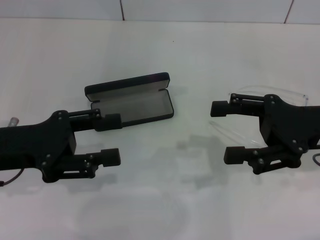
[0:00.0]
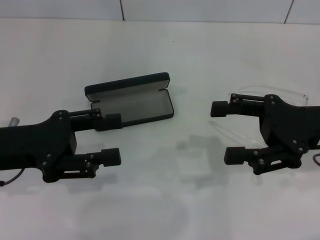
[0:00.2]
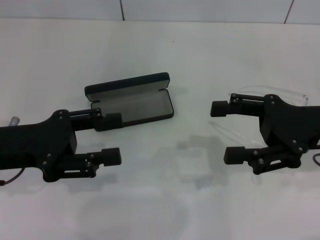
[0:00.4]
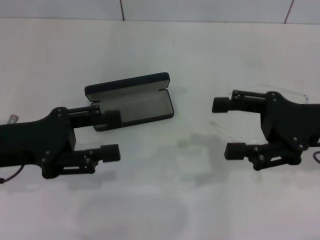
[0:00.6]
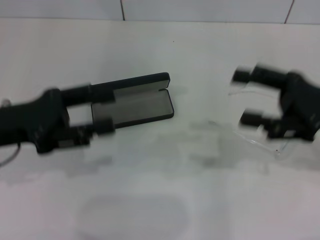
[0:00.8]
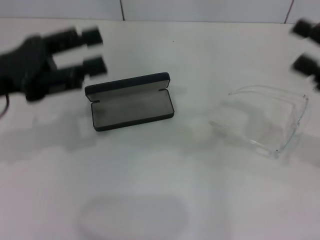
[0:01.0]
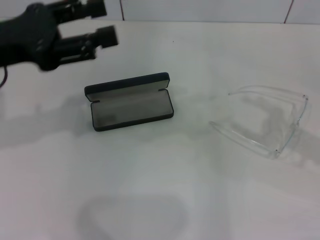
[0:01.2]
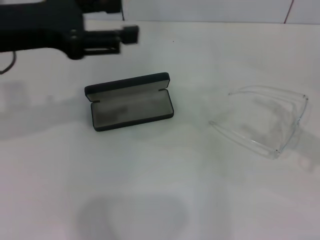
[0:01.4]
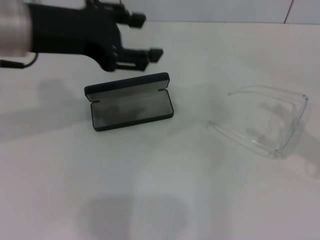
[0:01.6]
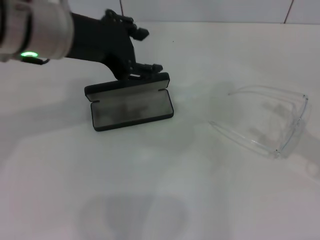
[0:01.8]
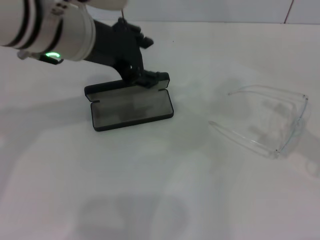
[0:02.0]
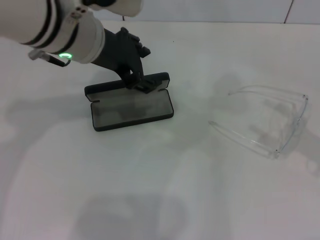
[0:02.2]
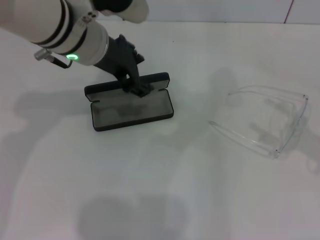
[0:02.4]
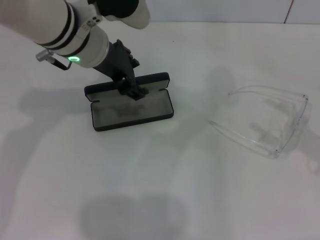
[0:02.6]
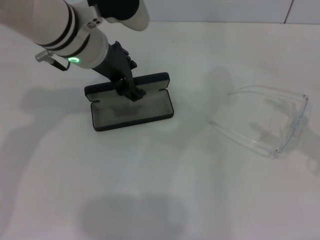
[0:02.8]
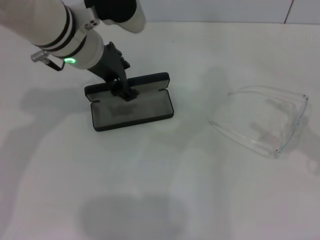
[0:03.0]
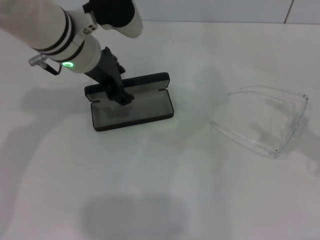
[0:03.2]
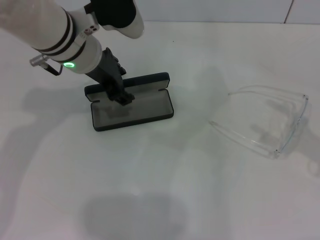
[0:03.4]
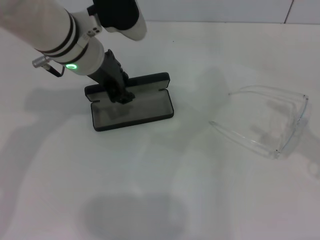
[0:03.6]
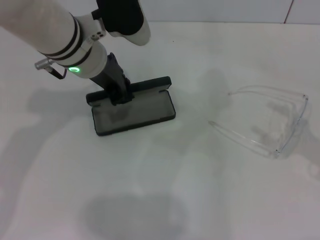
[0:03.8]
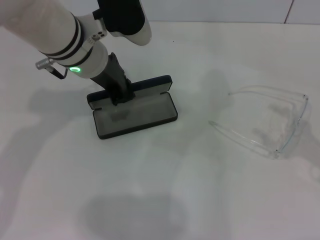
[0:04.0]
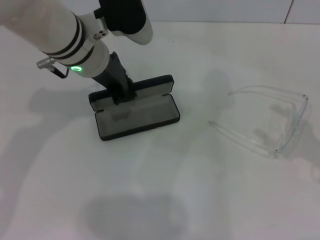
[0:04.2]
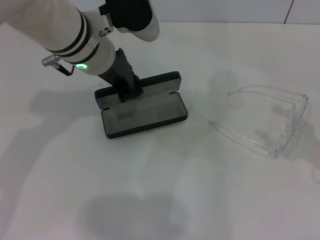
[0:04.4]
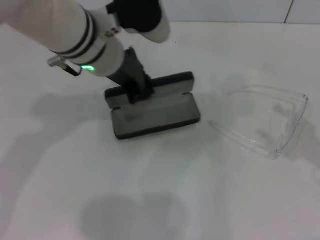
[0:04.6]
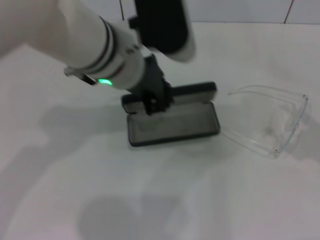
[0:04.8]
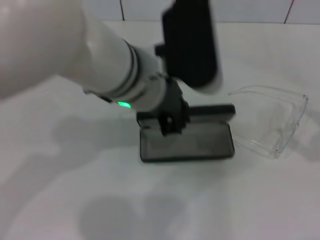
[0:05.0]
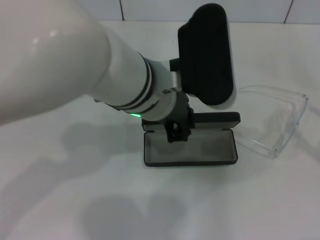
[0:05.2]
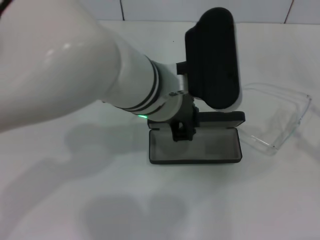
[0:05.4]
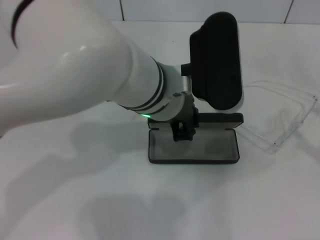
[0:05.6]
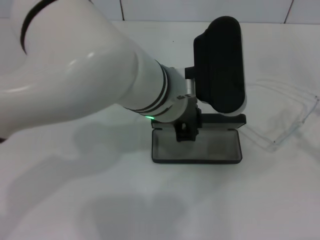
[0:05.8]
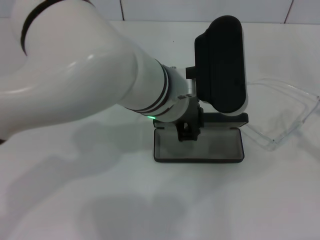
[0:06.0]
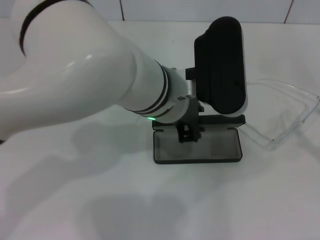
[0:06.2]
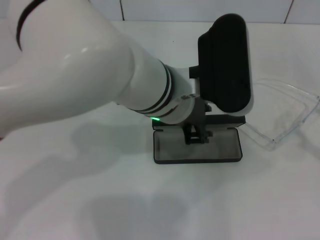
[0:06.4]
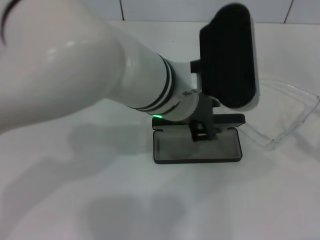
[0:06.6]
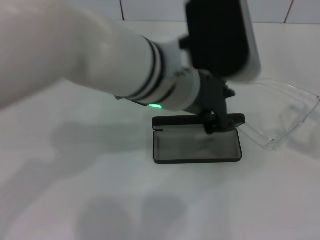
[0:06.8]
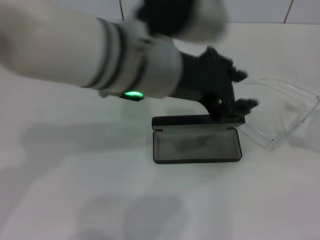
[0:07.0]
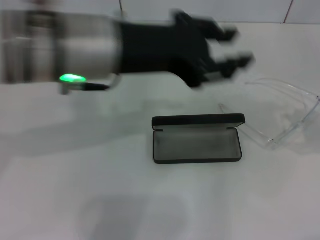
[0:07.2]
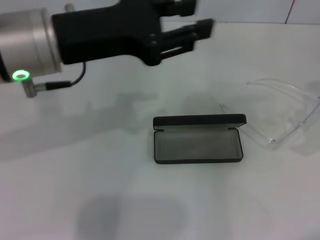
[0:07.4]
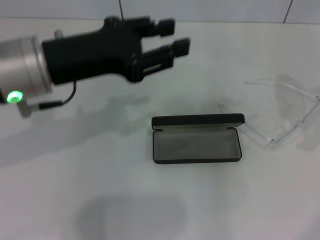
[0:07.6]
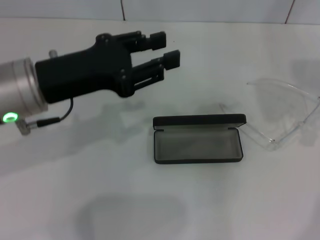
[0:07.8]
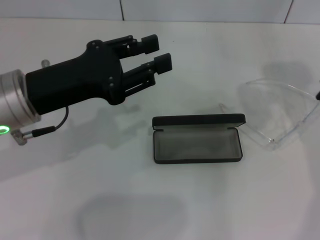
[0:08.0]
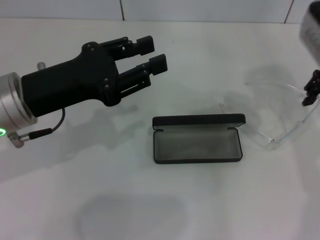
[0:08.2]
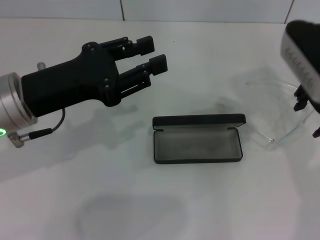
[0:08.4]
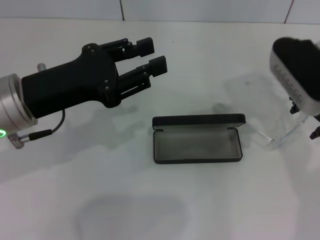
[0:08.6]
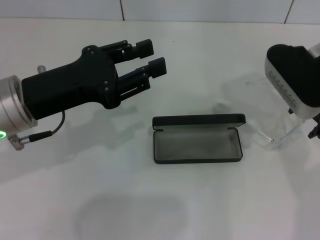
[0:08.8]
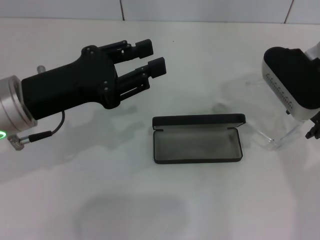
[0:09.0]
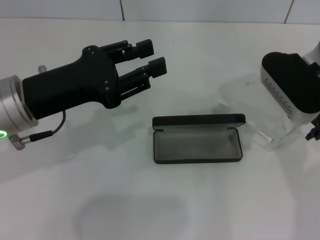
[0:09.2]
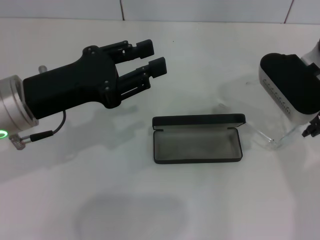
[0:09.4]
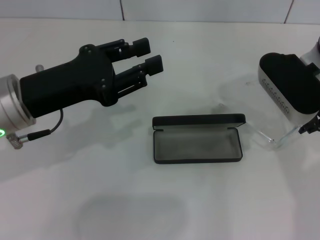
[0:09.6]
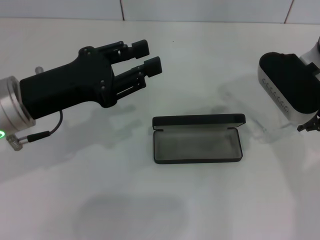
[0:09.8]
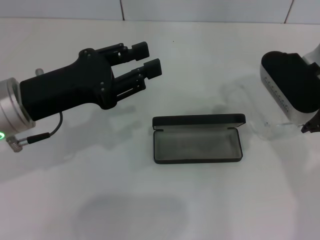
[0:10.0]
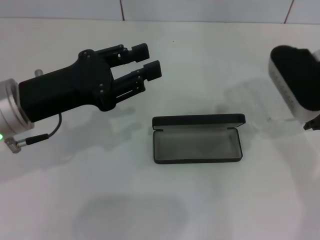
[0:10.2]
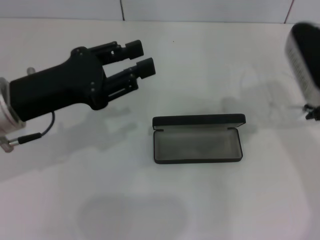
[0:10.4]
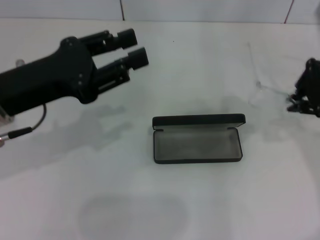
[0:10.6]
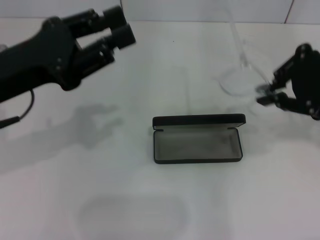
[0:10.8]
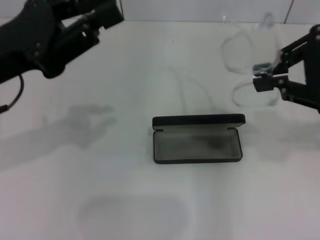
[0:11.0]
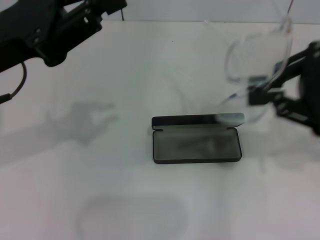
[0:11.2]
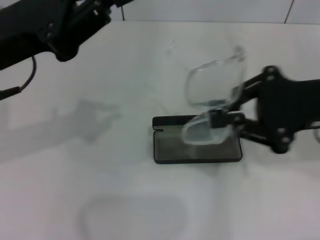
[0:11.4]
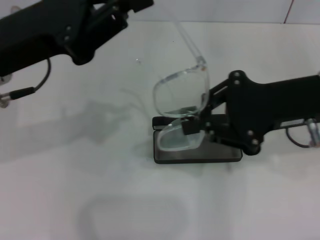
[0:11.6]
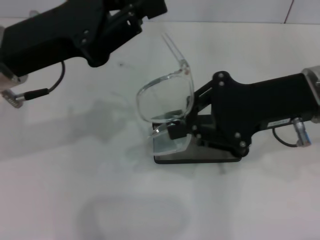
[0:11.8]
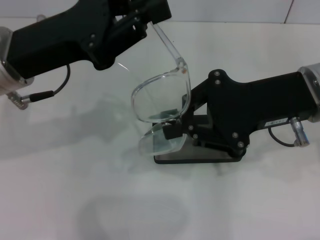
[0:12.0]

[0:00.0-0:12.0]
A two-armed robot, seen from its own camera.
Step, 0:00.0 to 0:03.8: Grab the glasses case with your left hand.
Step, 0:04.0 to 0:06.0: Place the glasses case in the center of the table with your left hand.
Step, 0:06.2 to 0:09.8: Grab the eyeglass frame with your right hand.
0:00.0 to 0:01.6: The left gripper shifts about 15 cm upward, to the right and forward. Meanwhile the right gripper is displaced to the right and backward by roughly 10 cm.
0:01.6 to 0:03.0: The left gripper is displaced forward, downward and to the right by about 10 cm.
0:03.0 to 0:04.4: The left gripper closes.
0:04.4 to 0:06.0: The left gripper heads to the right and backward, covering some 10 cm.
0:06.0 to 0:07.6: The right gripper travels forward and upward by roughly 25 cm, while the left gripper shifts roughly 15 cm to the left.
0:07.6 to 0:09.0: The right gripper goes about 15 cm to the left and downward; the left gripper moves about 5 cm.
0:09.0 to 0:10.4: The right gripper closes its fingers.
0:10.4 to 0:12.0: The right gripper goes about 5 cm backward, while the left gripper ends up roughly 5 cm from where it was, and closes up.

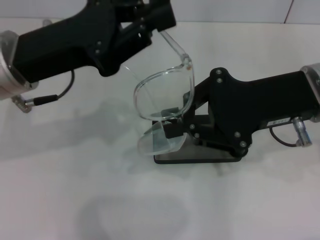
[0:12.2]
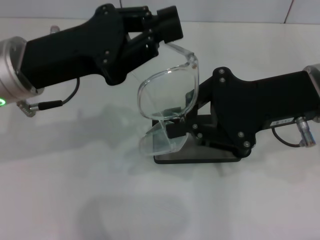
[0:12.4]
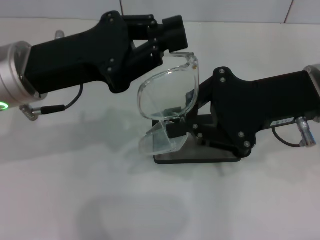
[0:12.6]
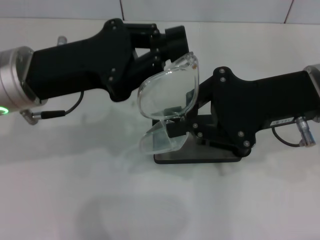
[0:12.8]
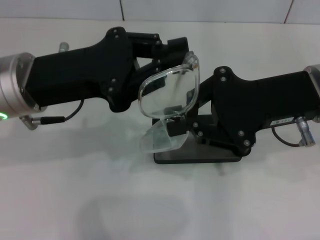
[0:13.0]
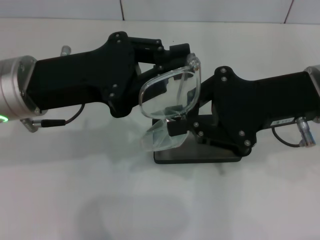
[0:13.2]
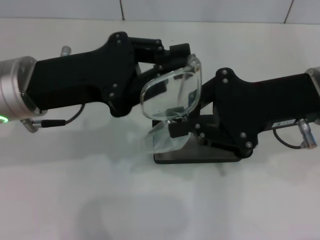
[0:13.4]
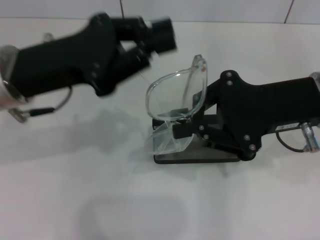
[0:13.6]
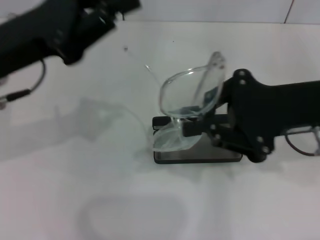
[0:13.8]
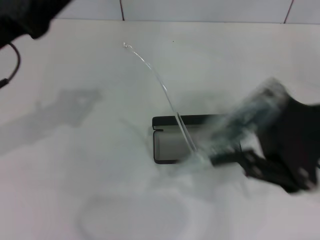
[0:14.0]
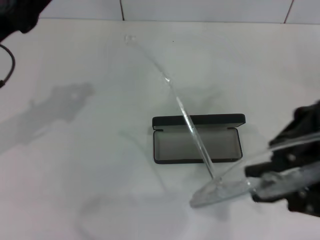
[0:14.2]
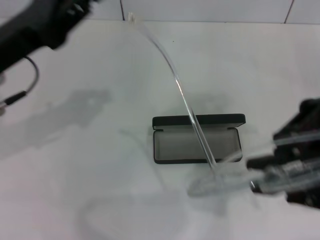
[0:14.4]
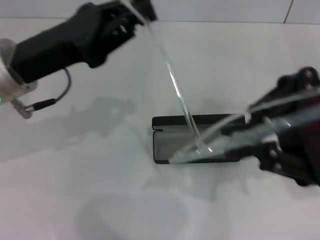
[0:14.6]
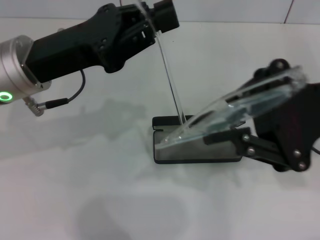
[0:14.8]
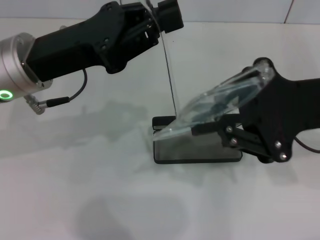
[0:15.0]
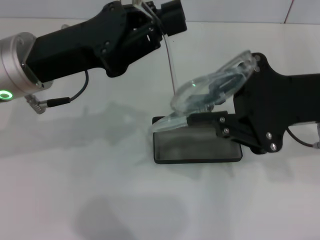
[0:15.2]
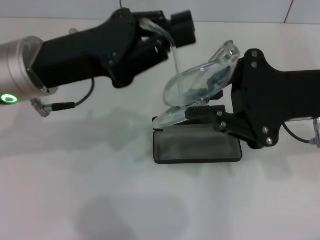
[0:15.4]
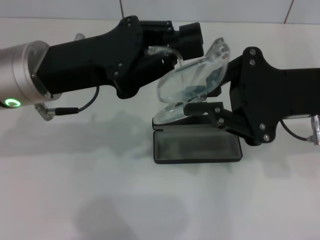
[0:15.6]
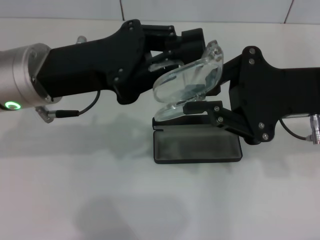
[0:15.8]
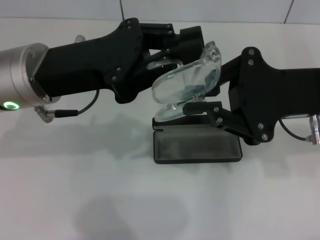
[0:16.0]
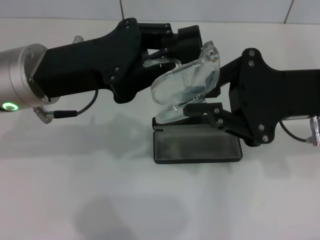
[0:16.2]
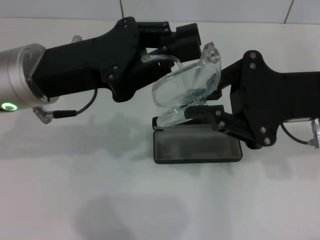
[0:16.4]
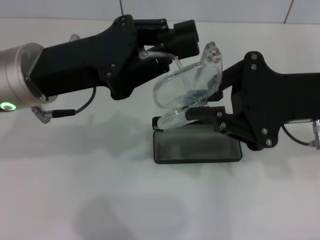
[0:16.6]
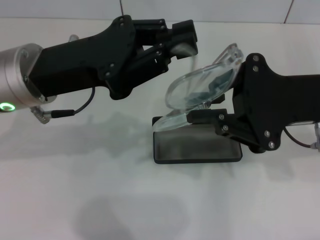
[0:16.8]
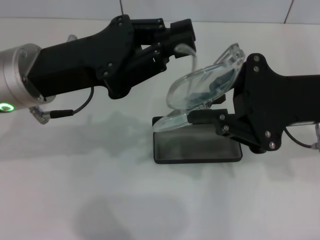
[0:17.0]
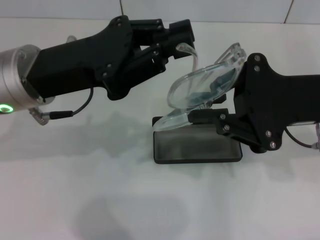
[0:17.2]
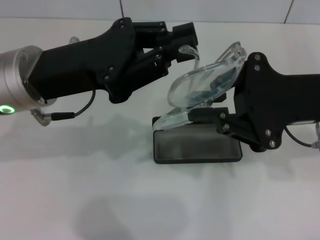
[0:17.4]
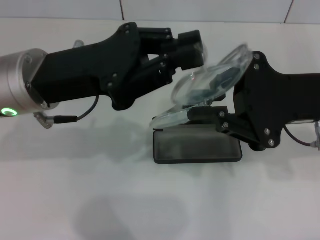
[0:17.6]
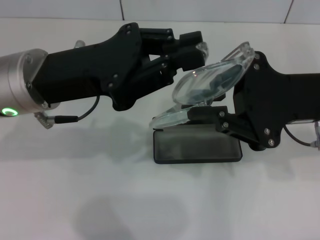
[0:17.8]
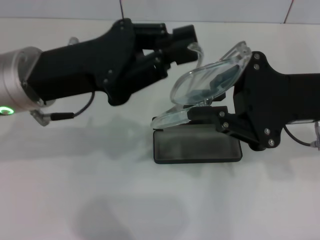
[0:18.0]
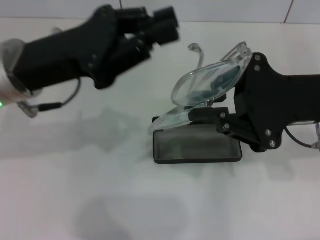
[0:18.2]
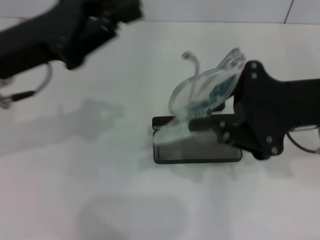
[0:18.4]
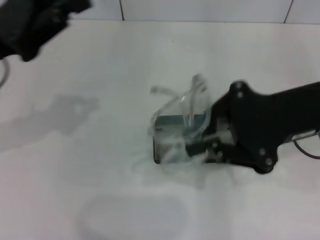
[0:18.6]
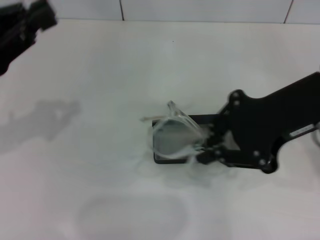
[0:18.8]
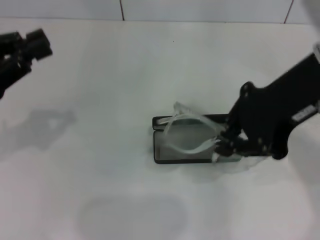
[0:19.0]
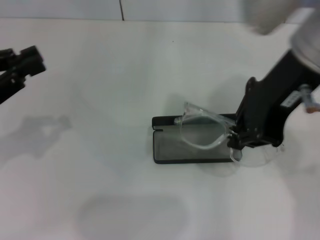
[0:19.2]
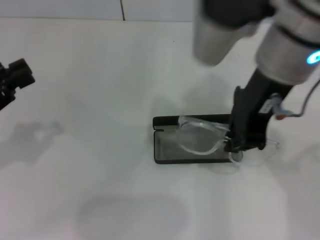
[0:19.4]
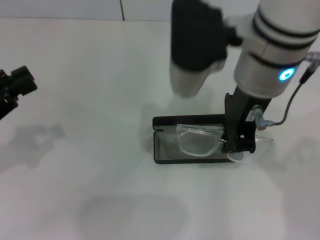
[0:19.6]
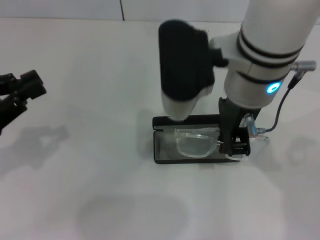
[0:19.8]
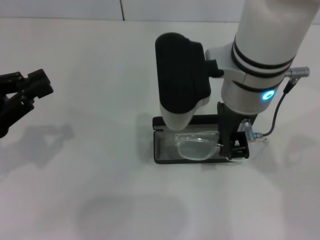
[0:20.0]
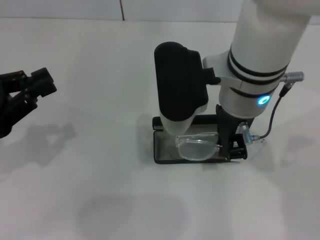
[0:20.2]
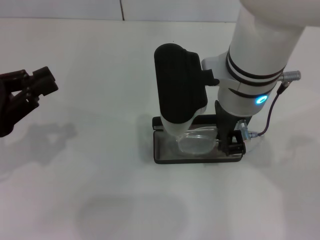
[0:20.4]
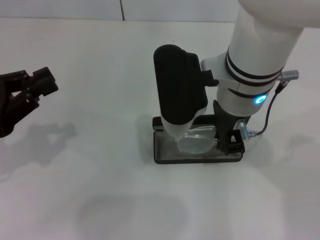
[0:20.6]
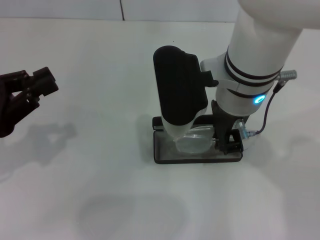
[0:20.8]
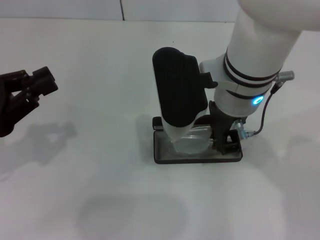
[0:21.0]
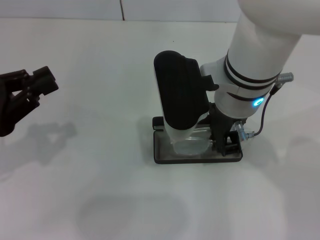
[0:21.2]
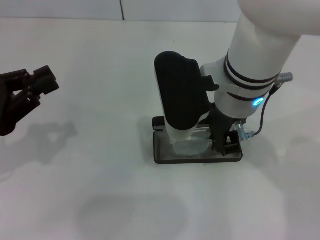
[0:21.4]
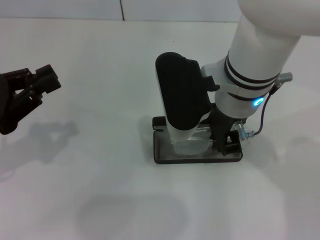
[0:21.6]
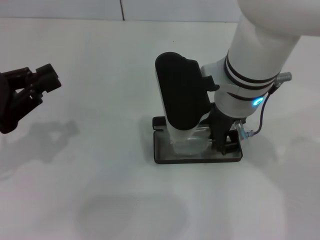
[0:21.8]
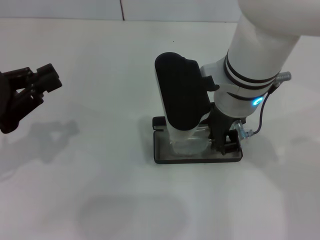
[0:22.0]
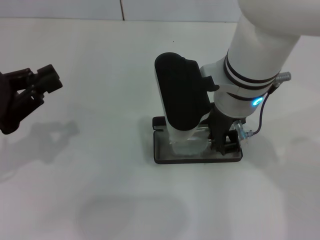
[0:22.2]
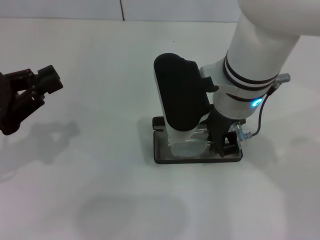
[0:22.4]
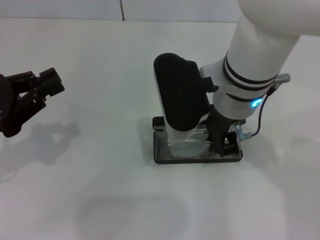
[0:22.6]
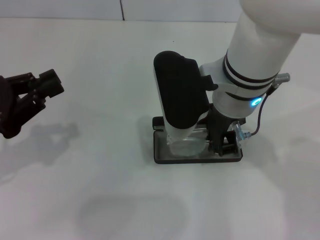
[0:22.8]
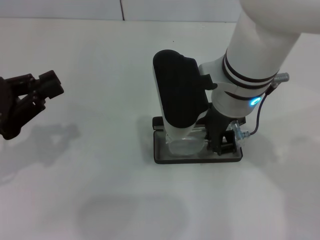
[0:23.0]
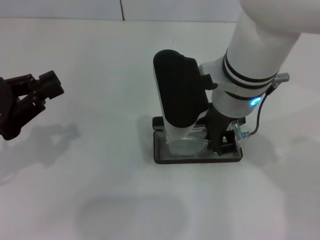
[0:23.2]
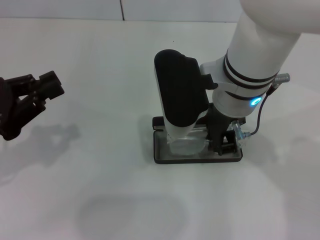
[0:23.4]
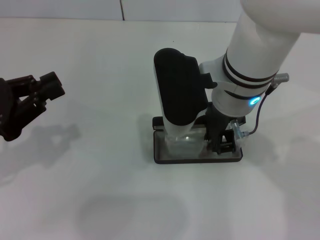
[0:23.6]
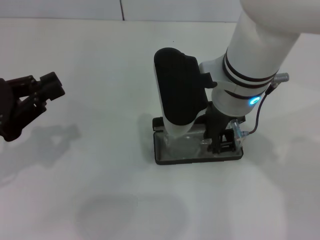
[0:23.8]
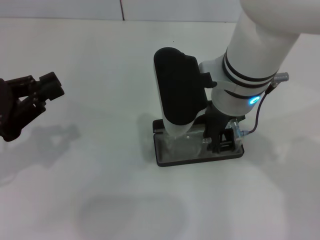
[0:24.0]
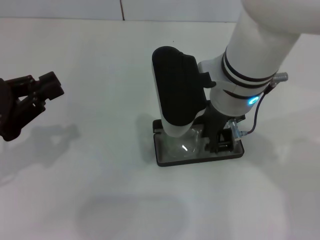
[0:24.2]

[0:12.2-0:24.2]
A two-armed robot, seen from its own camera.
Step, 0:12.2 to 0:16.8: Fold the frame with your left hand.
0:15.2 to 0:18.2: The grippers move only a little.
0:18.2 to 0:19.8: The left gripper heads to the left and backward, covering roughly 15 cm. The right gripper heads to the left, covering approximately 15 cm.
0:19.8 to 0:21.2: The grippers stay close to where they were, moving slightly.
0:21.2 to 0:24.2: Both grippers stay about where they are.
